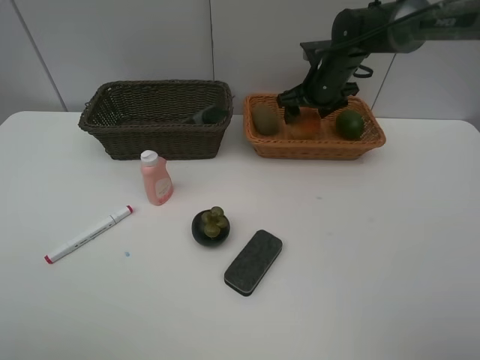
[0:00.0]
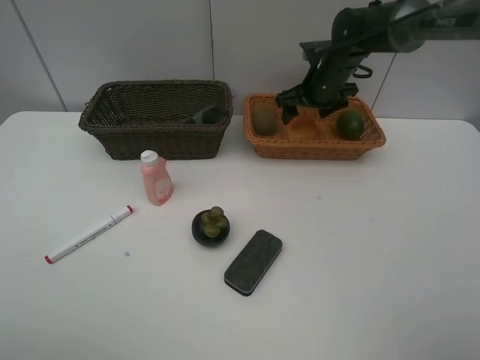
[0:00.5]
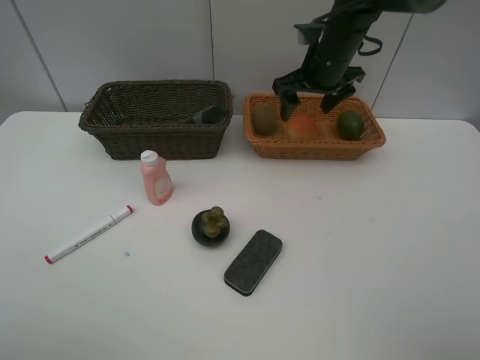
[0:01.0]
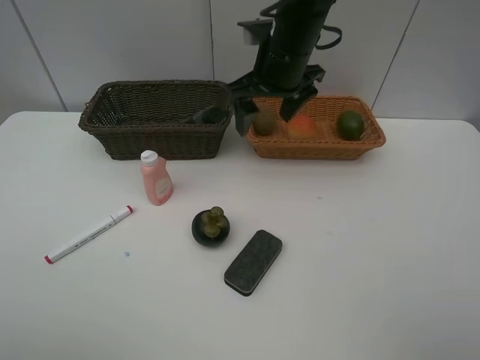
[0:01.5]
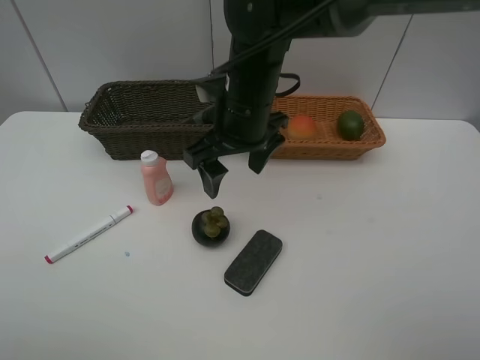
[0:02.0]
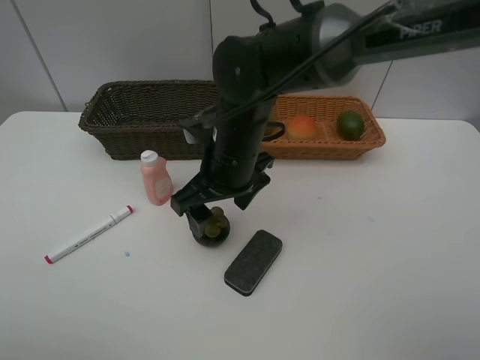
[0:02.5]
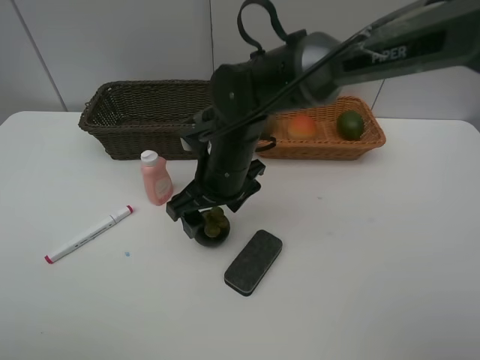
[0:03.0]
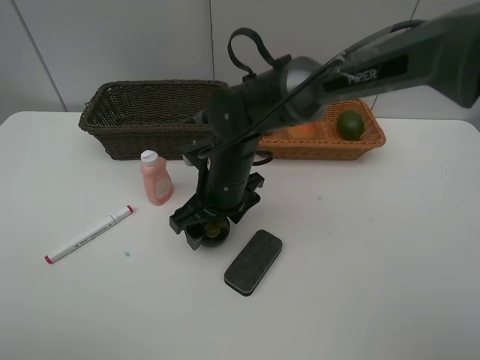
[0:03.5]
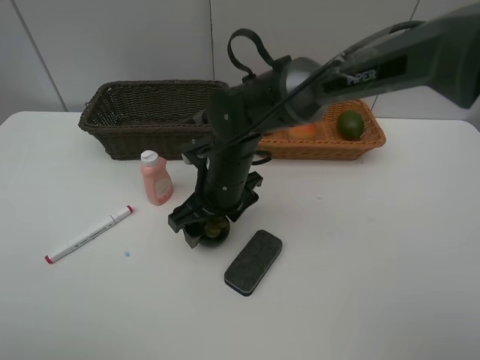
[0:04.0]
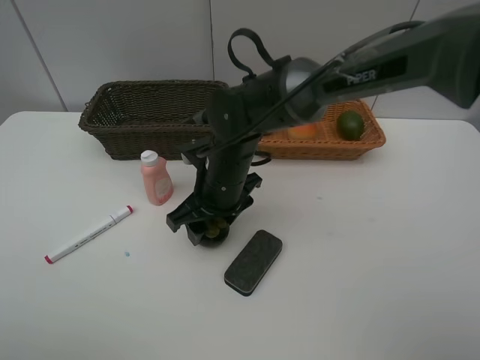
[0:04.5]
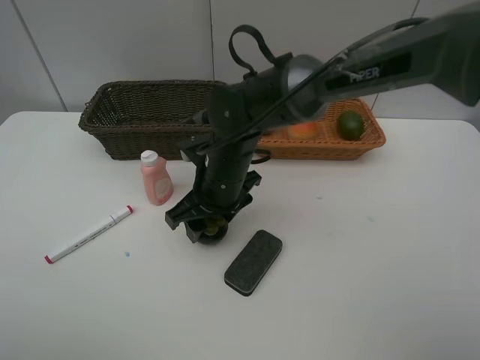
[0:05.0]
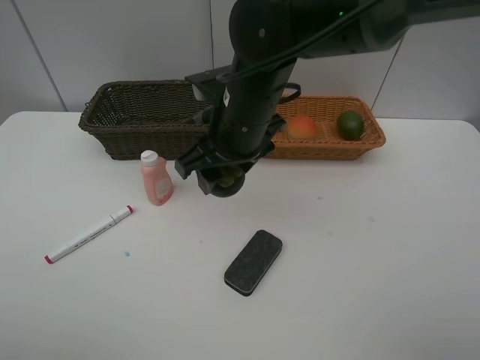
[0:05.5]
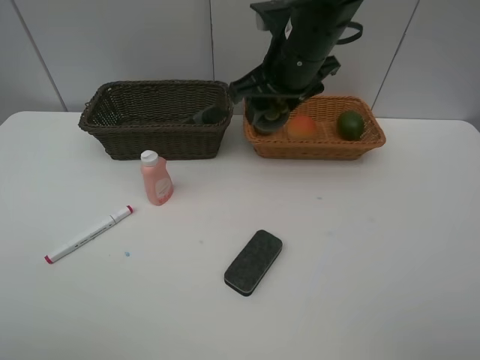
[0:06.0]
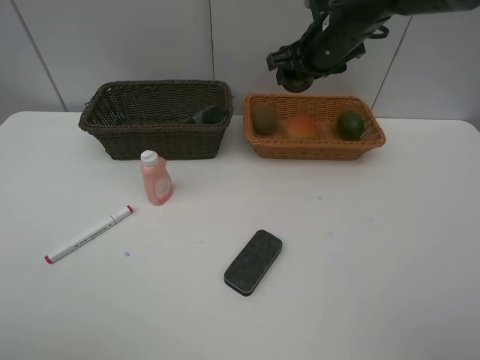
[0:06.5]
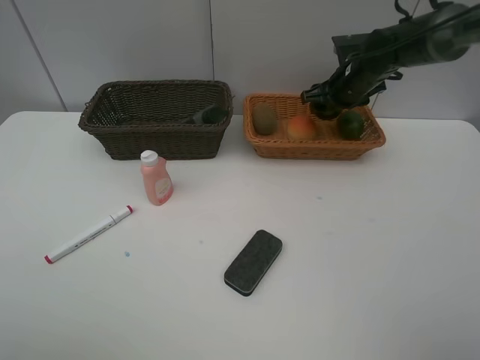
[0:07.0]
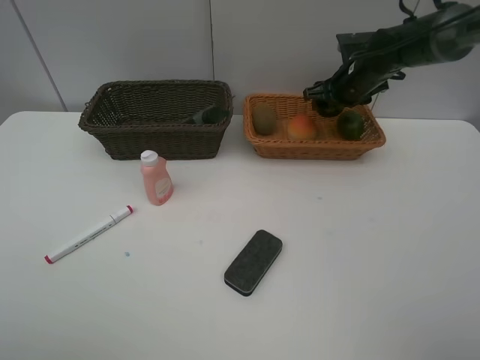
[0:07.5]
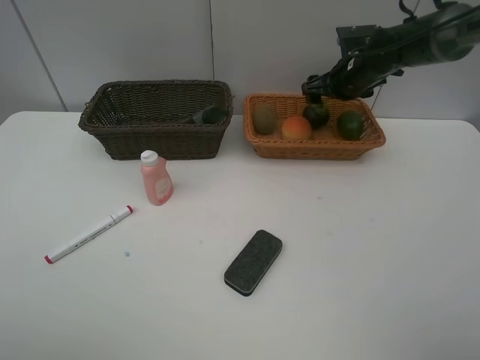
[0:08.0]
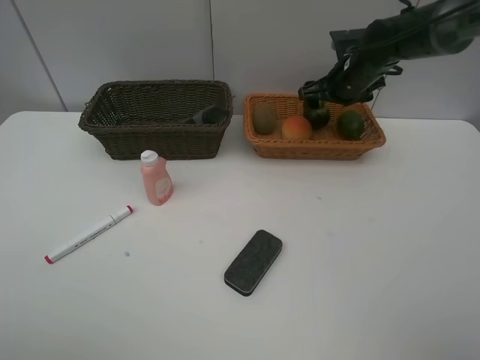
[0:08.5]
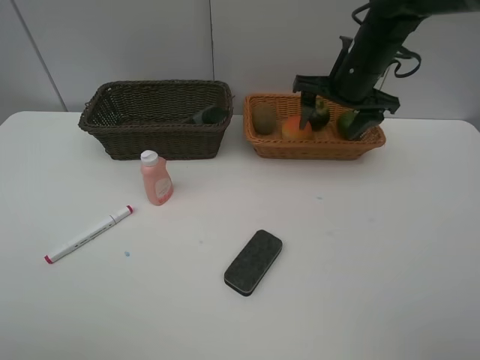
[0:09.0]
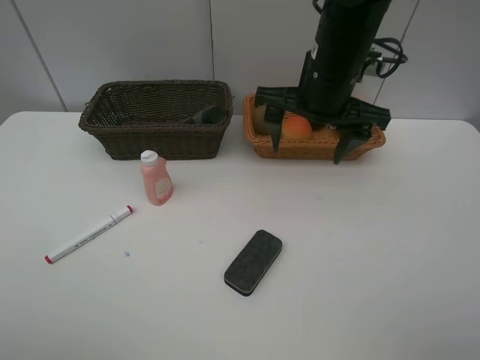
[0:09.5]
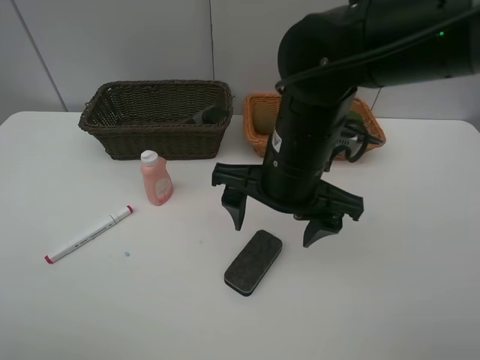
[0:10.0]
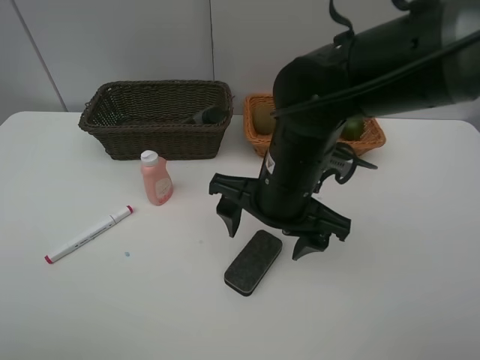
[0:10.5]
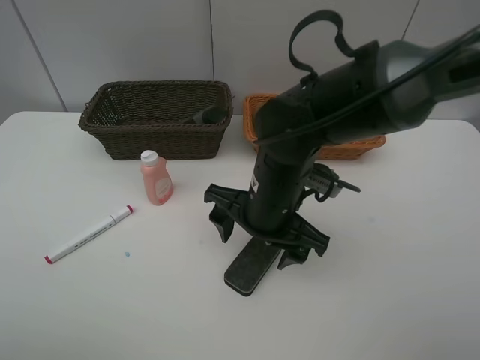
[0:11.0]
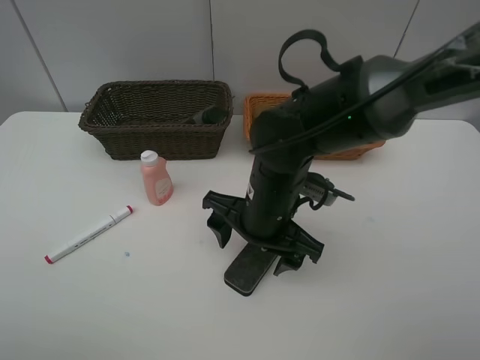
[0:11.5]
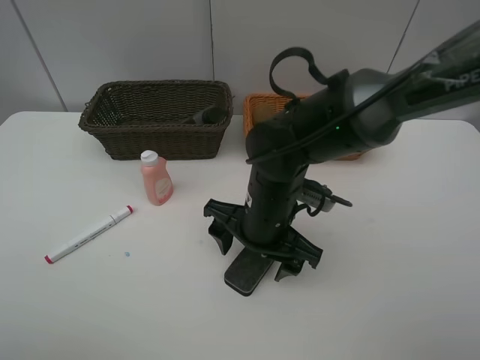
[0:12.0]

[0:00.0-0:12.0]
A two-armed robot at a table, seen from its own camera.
Task of the whole recording: Place multiple objects separately in different baskets.
Step, 0:01.0 to 0:05.0: Pick up the mangosteen with right gripper.
Step, 0:05.5 to 0:08.0: Place the mangosteen in the light basket with right gripper.
0:00.0 to 0:02.0: The right gripper shifts roughly 25 cm backward and to the left.
0:02.0 to 0:04.0: The right gripper heads downward, covering some 10 cm.
0:04.0 to 0:06.0: The right gripper travels upward and to the right by about 20 cm, and closes its fingers.
0:06.0 to 0:08.0: The right gripper is displaced to the right, forward and downward by about 20 cm, and opens up.
0:08.0 to 0:10.0: The right gripper is displaced backward and to the left by roughly 30 cm.
0:10.0 to 0:12.0: The right gripper shifts roughly 10 cm downward.

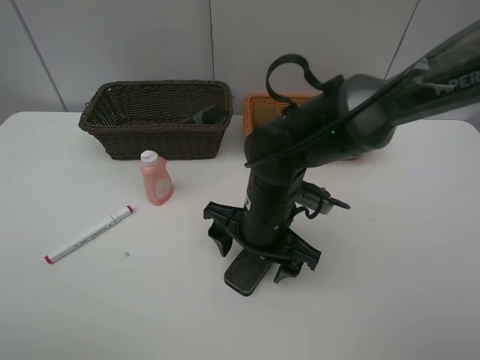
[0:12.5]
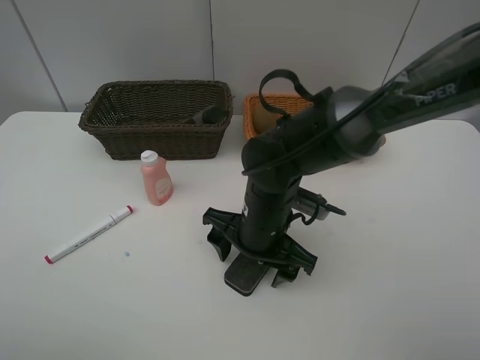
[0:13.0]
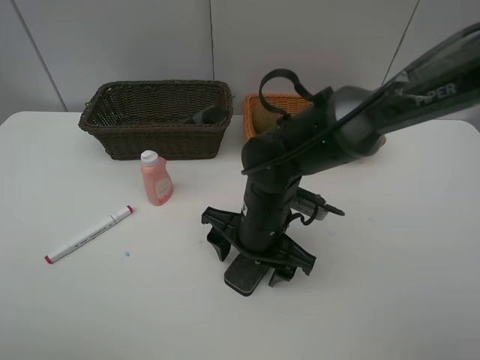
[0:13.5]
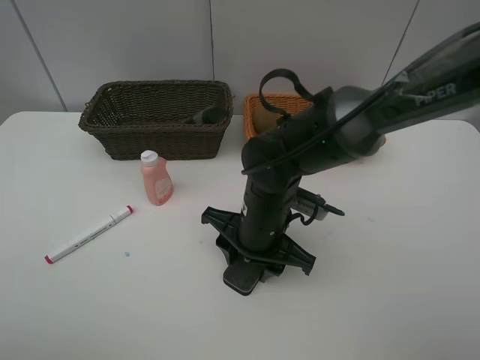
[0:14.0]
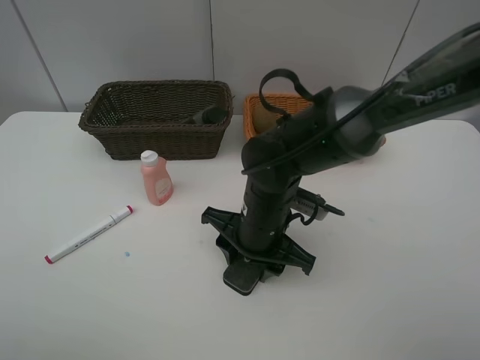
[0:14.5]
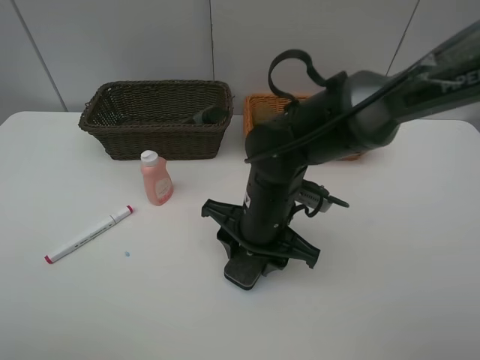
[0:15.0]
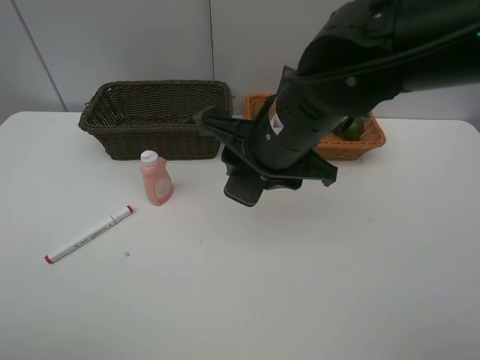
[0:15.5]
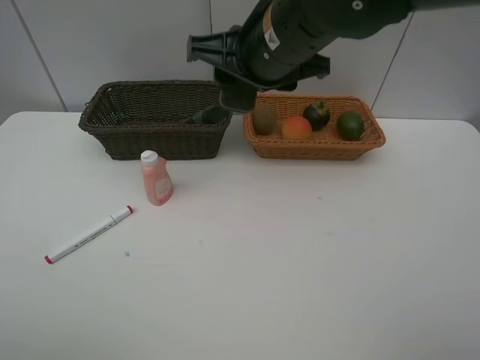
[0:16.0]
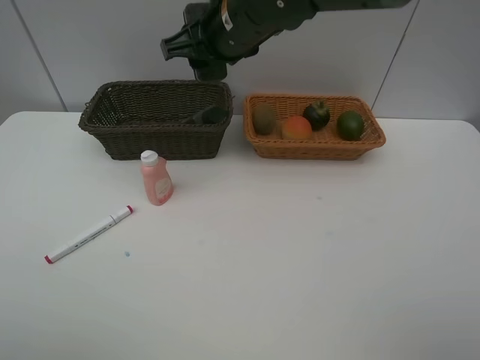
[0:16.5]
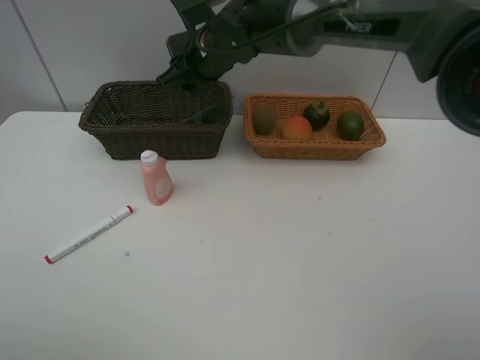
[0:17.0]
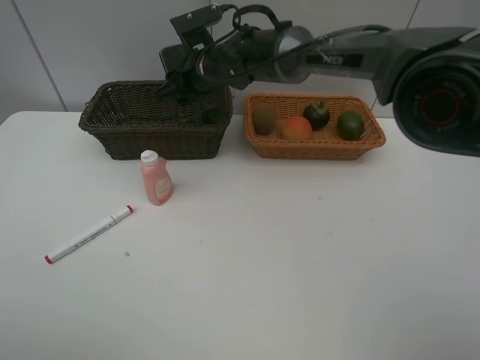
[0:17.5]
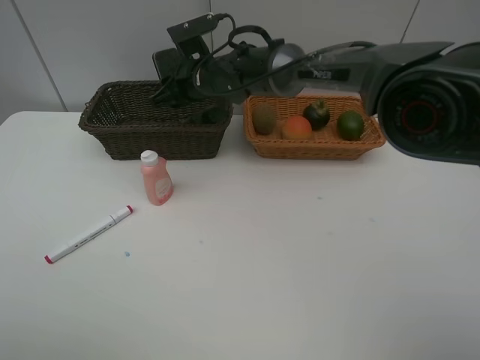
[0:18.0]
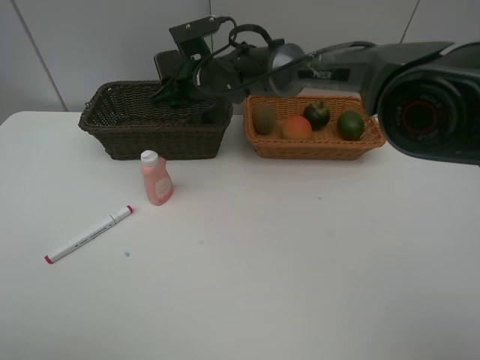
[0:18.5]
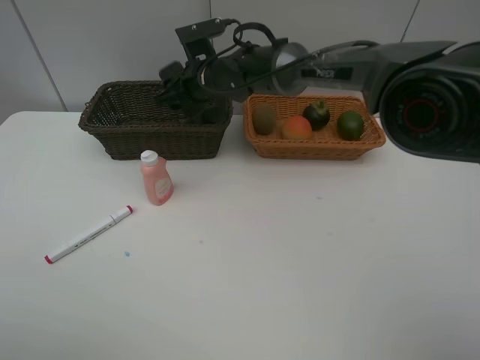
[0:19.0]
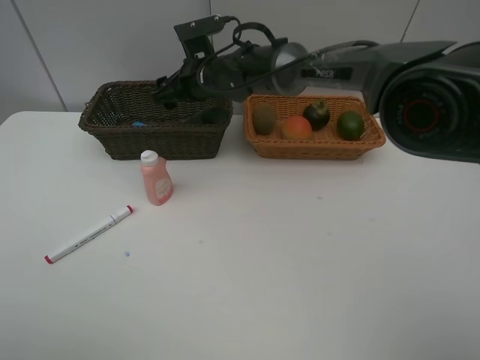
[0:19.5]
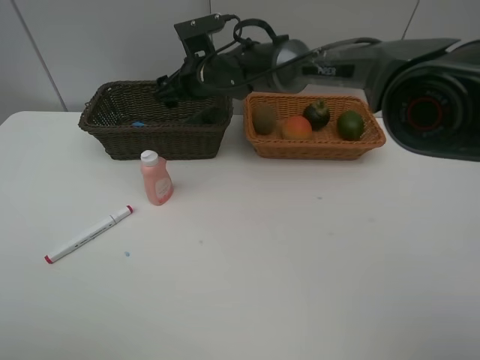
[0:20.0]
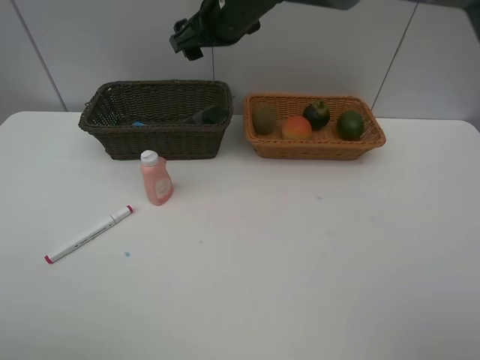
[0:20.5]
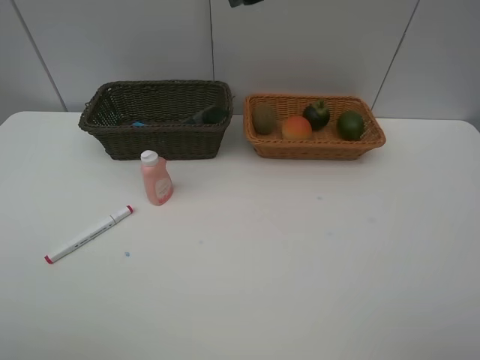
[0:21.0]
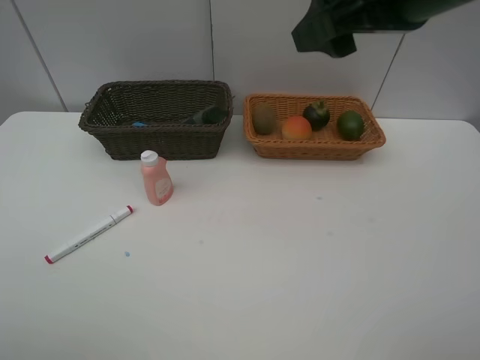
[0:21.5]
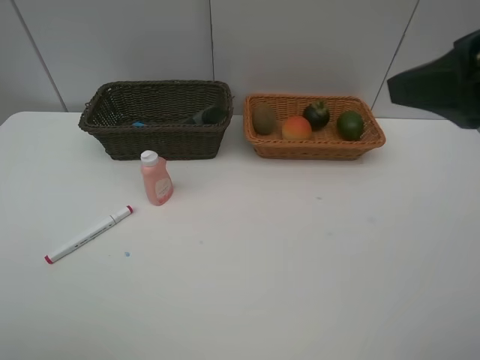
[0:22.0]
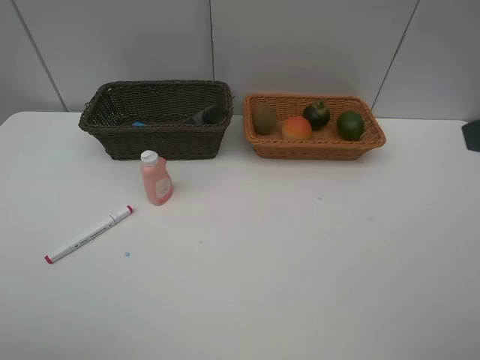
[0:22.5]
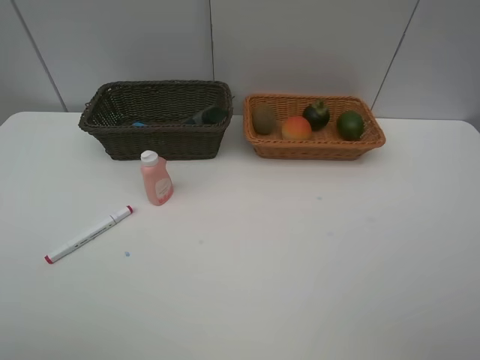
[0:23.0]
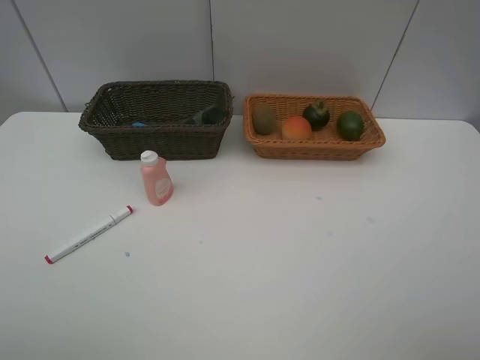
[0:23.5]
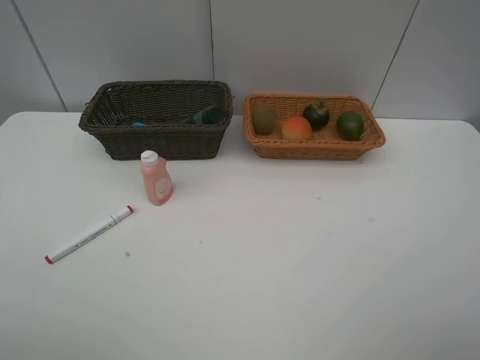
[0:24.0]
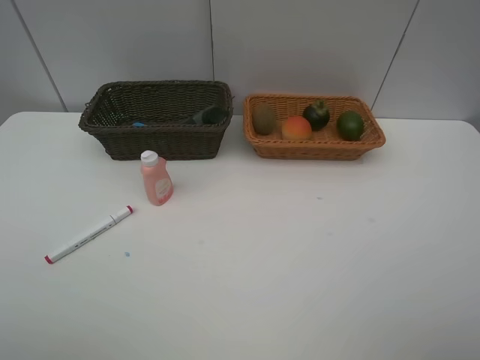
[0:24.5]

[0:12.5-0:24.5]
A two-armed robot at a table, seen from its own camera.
Task of the whole recording: Place multiple objects separately in different baskets.
Step, 0:12.5 to 0:15.0: Pick up blackboard eraser with right gripper.
Step, 0:15.5 to 0:19.5: Place the blackboard eraser in the dark basket with right gripper.
0:12.5 to 0:14.5: The right gripper closes up.
0:14.5 to 0:16.5: The right gripper goes approximately 20 cm upward and forward.
0:16.5 to 0:18.5: The right gripper goes about 15 cm downward and forward.
0:18.5 to 0:20.5: The right gripper travels upward by about 15 cm, and opens.
0:20.5 to 0:22.5: The right gripper goes approximately 40 cm backward and to the right.

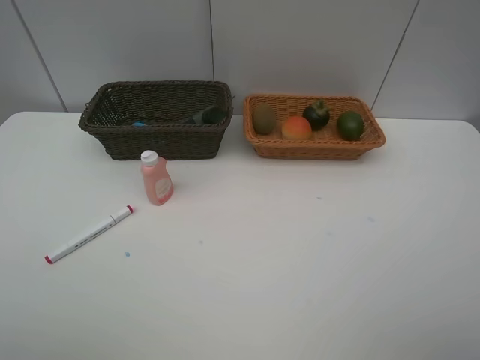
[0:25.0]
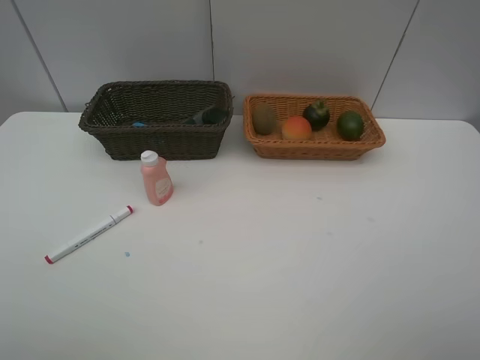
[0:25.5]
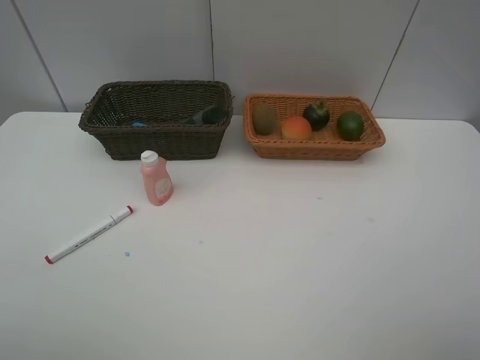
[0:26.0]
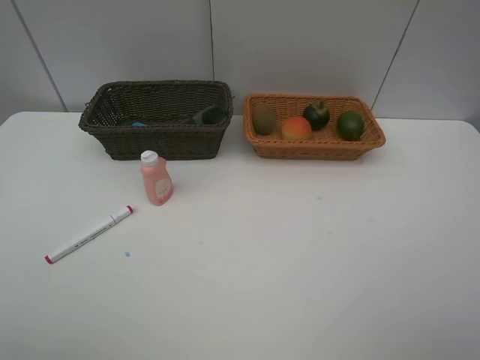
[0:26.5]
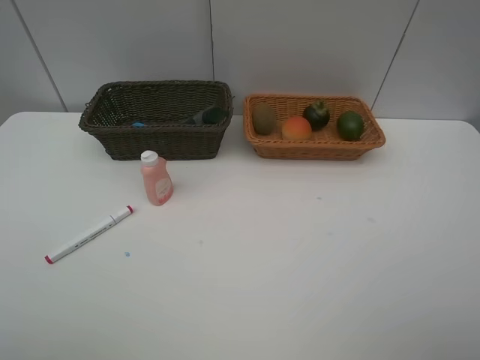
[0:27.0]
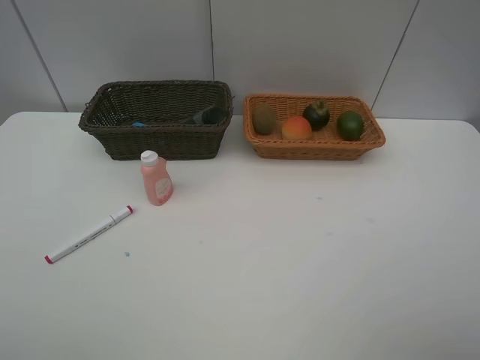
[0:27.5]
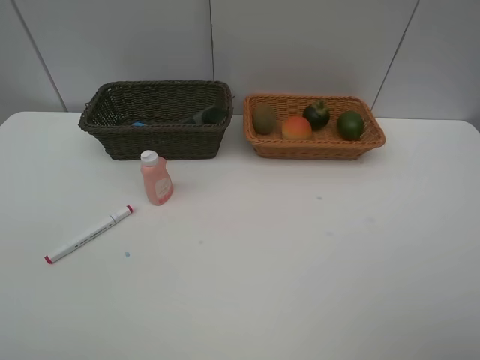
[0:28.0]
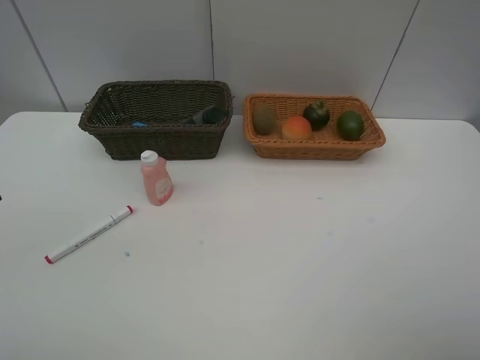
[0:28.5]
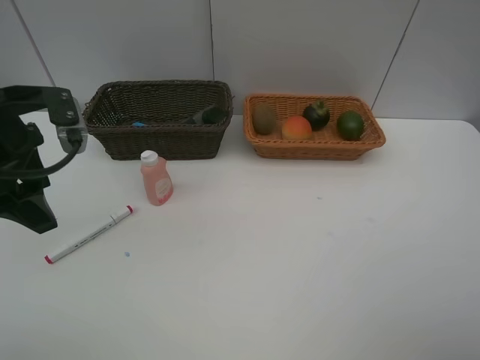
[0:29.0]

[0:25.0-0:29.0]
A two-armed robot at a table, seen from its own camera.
Task of the whole recording: Place multiple objects separately in different baskets.
0:27.0 to 0:29.0: The left gripper is displaced forward by approximately 25 cm.
